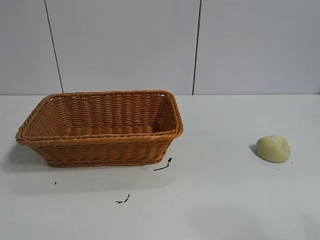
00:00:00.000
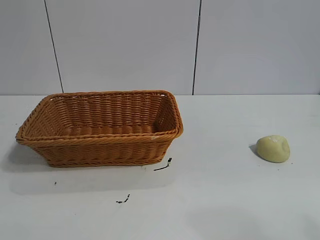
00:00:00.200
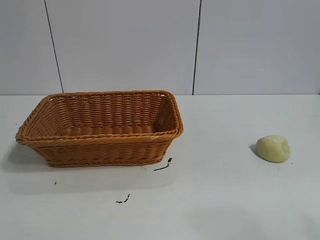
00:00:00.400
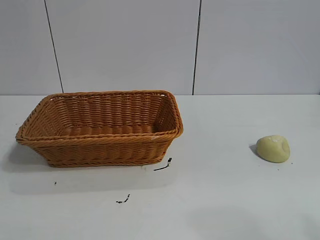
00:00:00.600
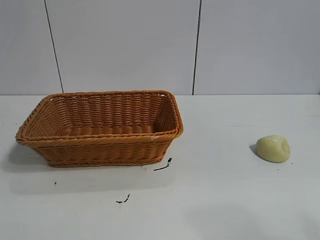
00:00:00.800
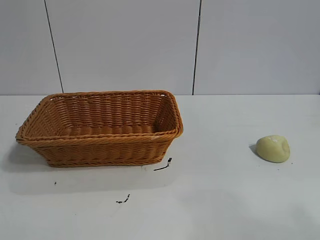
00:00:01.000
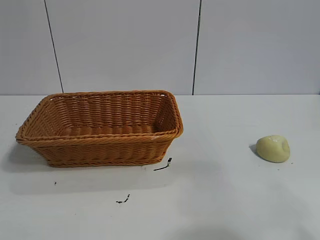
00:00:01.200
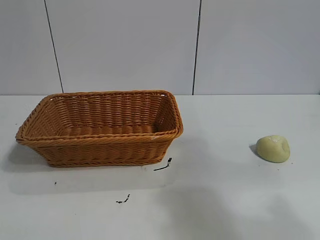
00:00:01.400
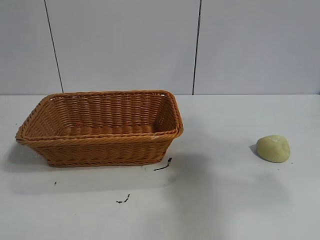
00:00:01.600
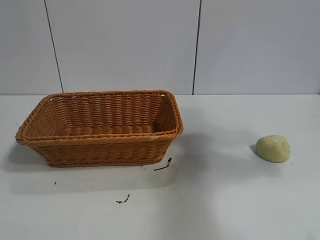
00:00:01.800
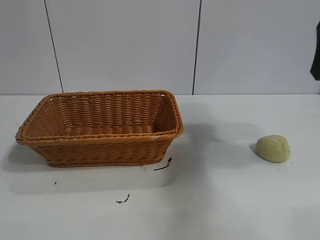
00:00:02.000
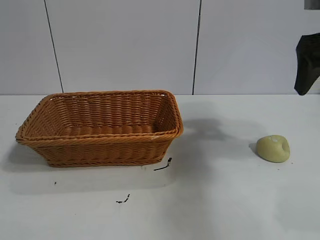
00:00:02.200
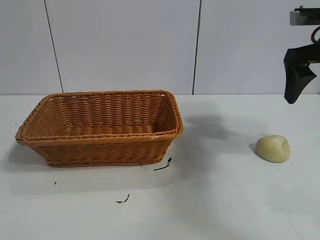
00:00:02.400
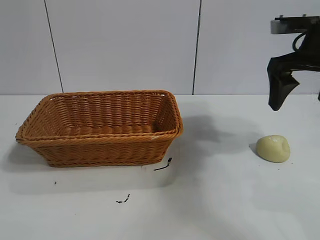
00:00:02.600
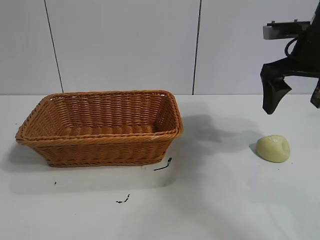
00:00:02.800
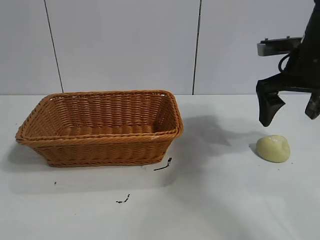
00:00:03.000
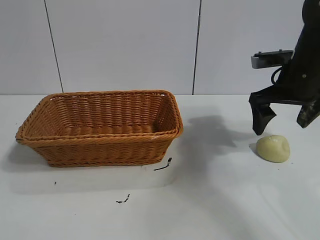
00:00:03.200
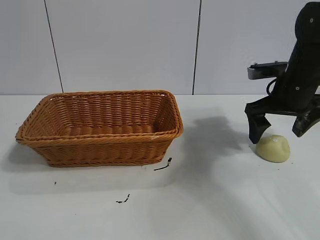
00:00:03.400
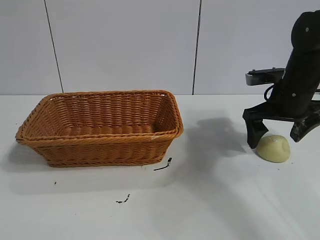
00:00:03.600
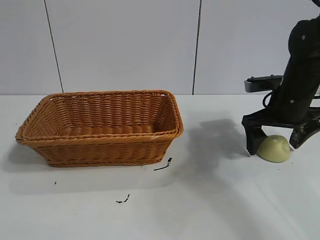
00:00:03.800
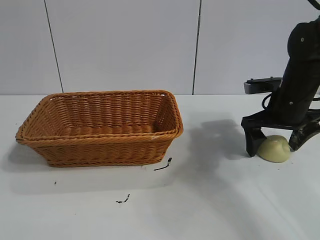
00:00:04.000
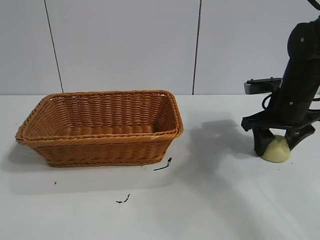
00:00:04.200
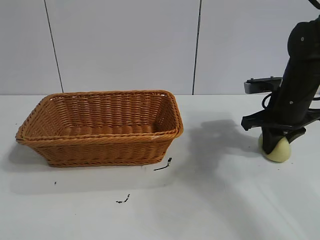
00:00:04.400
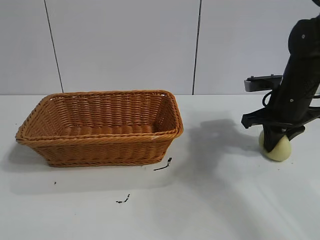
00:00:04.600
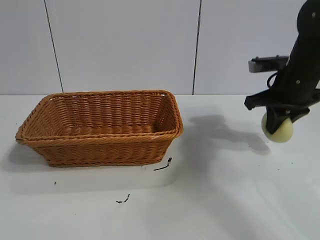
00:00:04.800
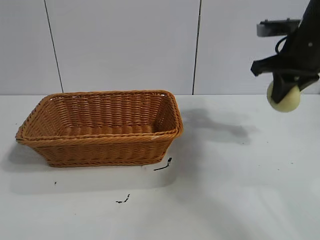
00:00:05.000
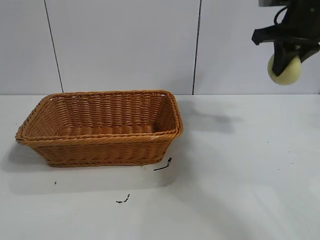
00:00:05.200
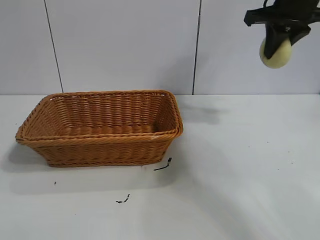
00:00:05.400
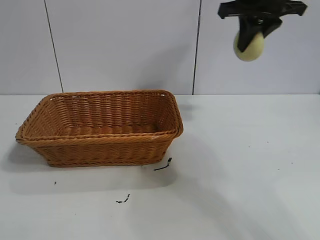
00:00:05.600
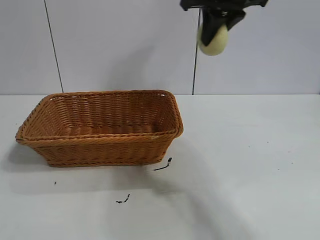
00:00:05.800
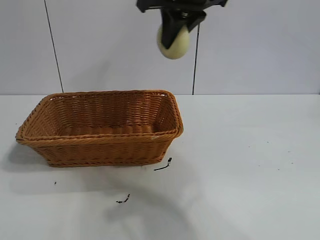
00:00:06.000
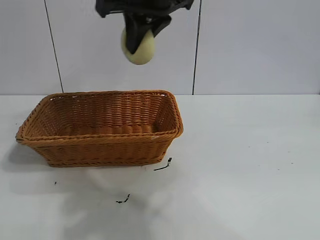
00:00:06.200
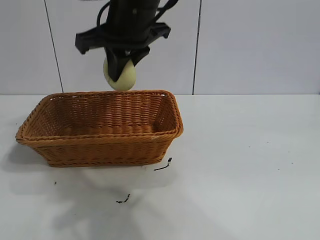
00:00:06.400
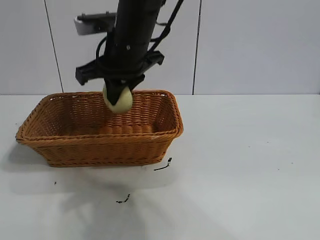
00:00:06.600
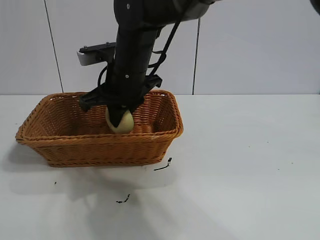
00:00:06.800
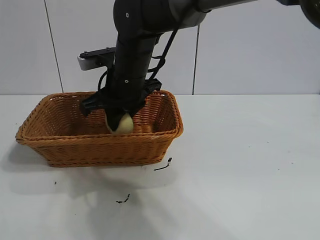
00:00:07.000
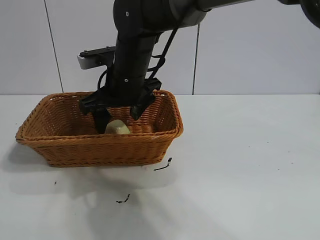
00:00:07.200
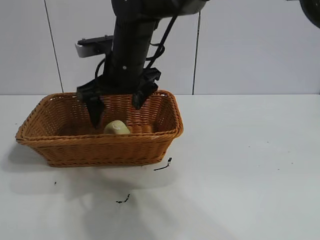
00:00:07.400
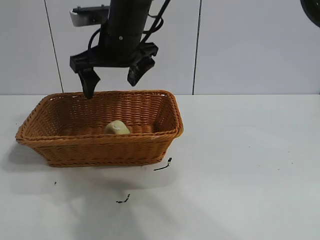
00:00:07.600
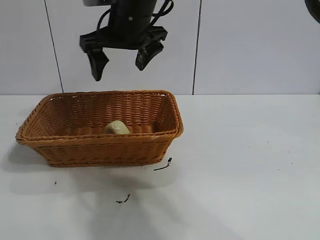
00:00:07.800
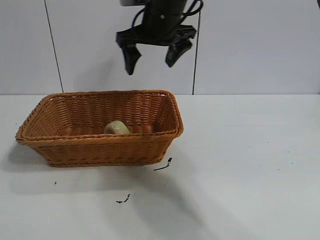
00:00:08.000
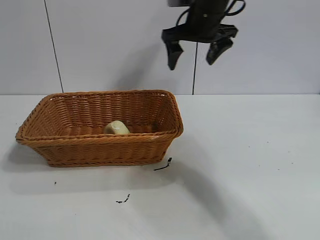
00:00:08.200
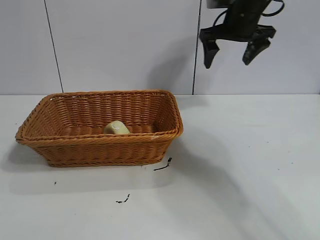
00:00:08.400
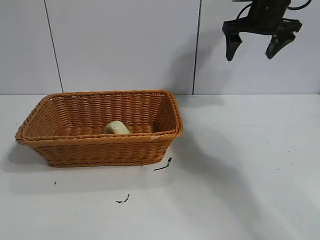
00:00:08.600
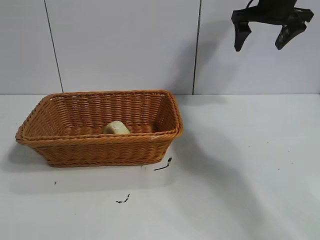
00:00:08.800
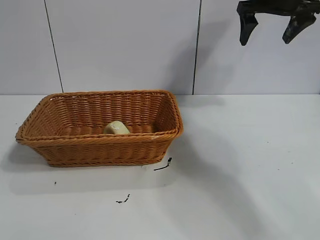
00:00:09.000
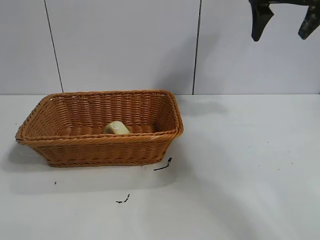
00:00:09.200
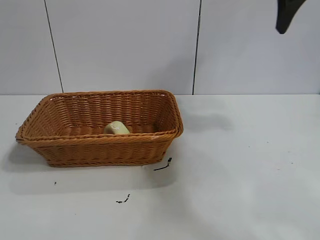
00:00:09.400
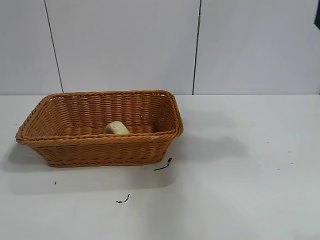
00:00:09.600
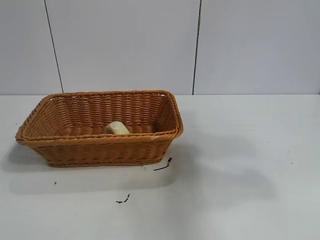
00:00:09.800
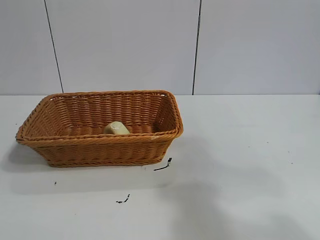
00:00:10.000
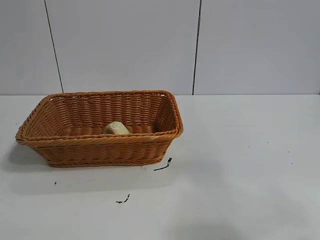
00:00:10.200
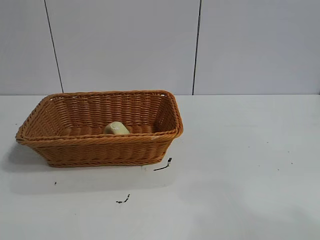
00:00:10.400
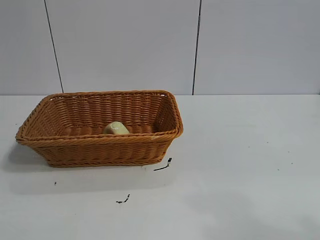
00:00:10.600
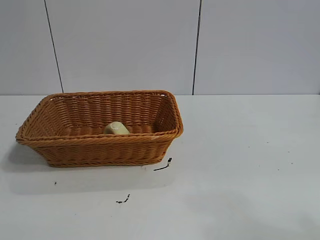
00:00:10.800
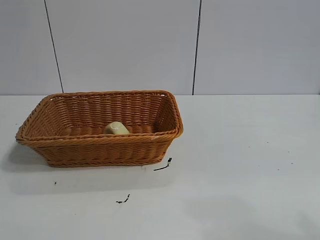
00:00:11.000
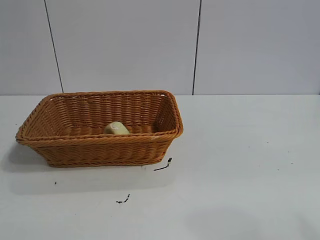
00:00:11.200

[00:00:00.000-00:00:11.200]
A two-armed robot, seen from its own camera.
Task of the whole recording: pick up the egg yolk pastry and put it into the basket.
Step, 00:00:01.000 to 00:00:04.400: Grasp egg yolk pastry with right gripper.
Step, 00:00:04.600 to 00:00:07.000: Place the egg yolk pastry in the basket with right gripper.

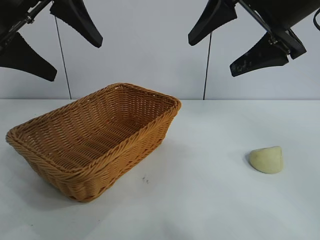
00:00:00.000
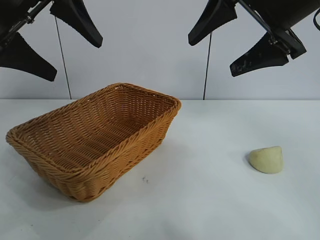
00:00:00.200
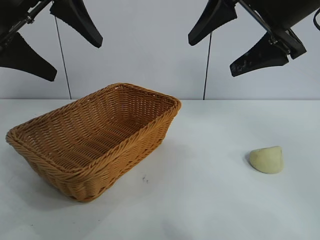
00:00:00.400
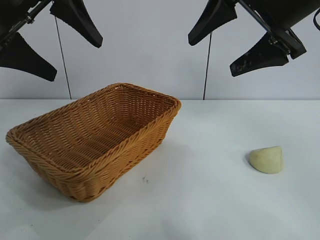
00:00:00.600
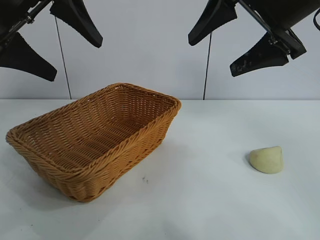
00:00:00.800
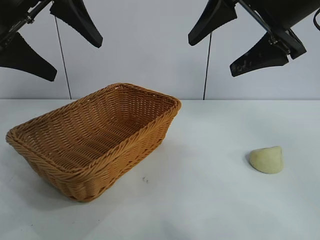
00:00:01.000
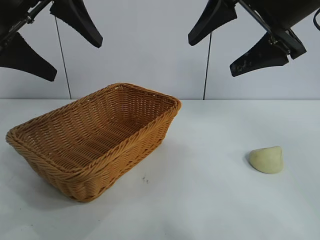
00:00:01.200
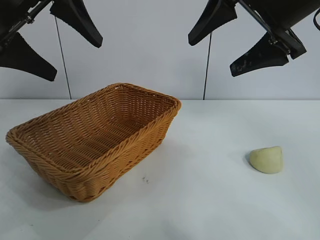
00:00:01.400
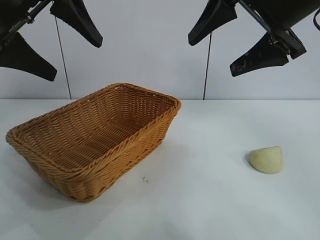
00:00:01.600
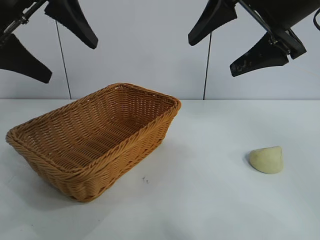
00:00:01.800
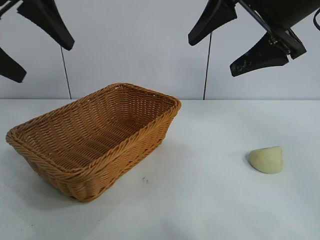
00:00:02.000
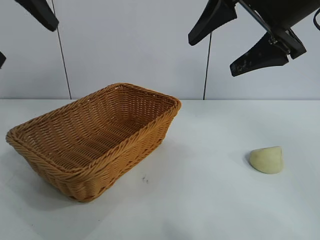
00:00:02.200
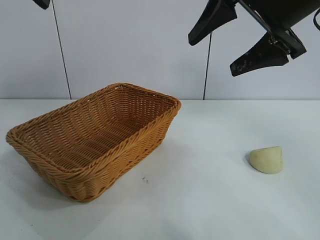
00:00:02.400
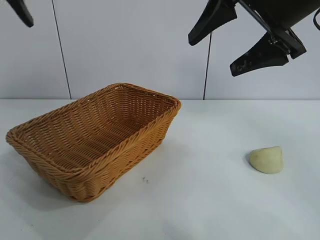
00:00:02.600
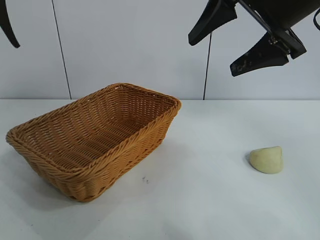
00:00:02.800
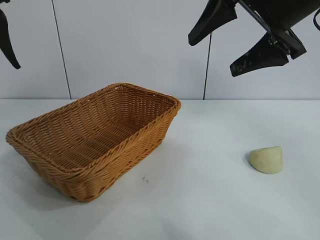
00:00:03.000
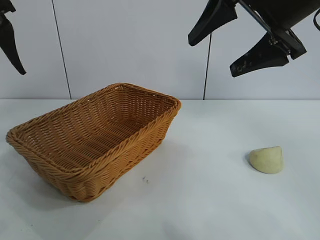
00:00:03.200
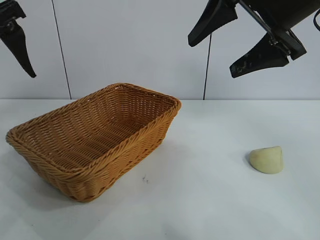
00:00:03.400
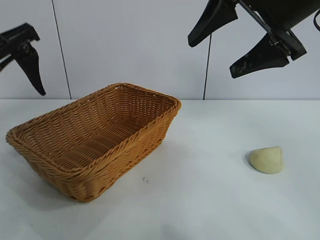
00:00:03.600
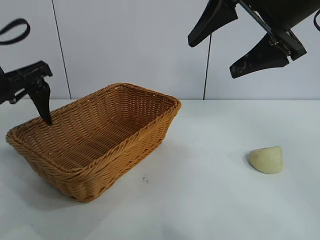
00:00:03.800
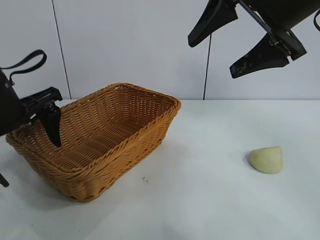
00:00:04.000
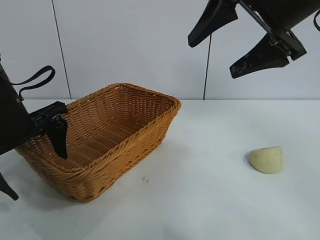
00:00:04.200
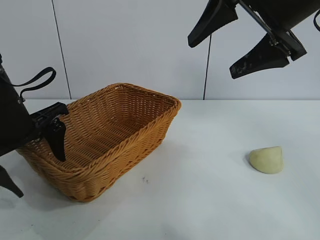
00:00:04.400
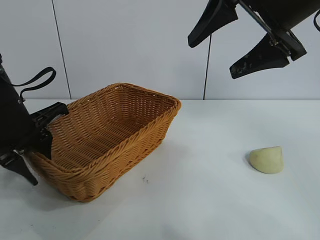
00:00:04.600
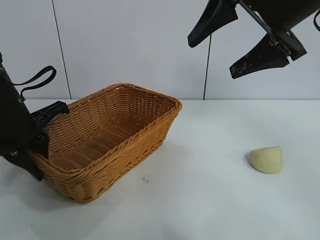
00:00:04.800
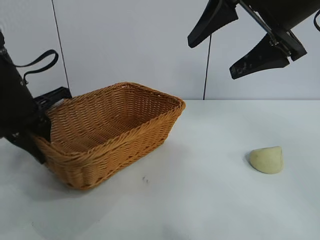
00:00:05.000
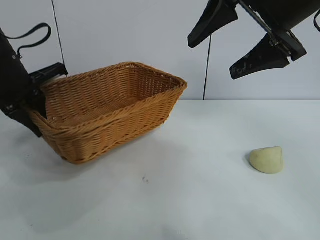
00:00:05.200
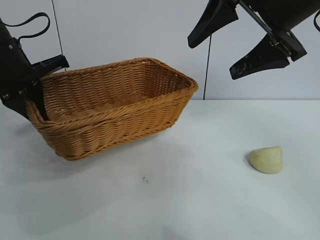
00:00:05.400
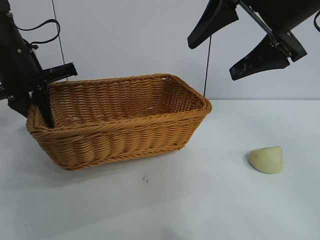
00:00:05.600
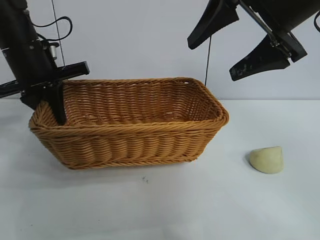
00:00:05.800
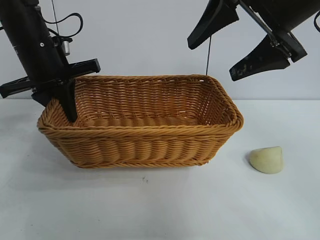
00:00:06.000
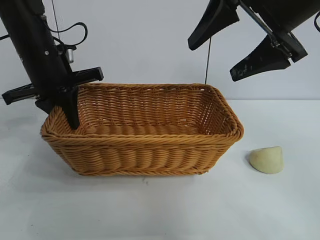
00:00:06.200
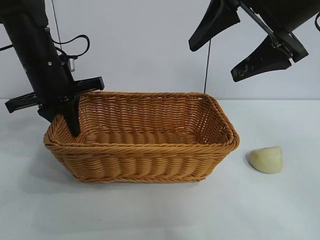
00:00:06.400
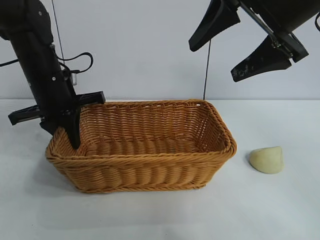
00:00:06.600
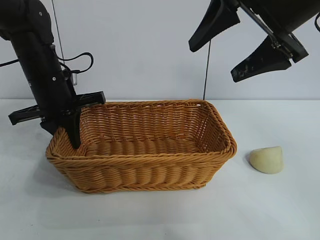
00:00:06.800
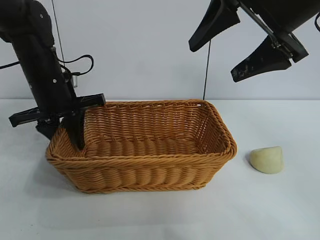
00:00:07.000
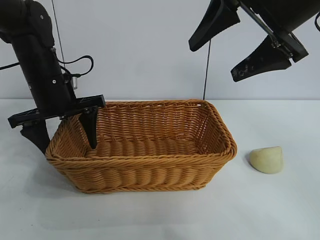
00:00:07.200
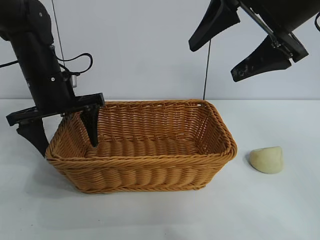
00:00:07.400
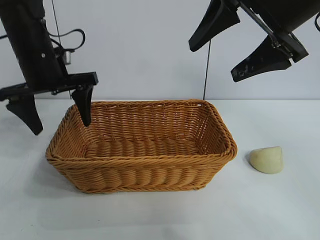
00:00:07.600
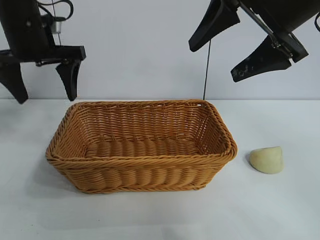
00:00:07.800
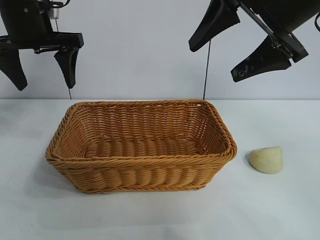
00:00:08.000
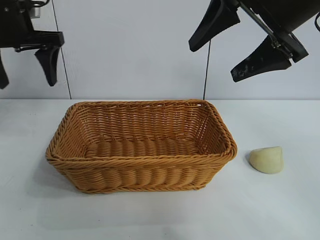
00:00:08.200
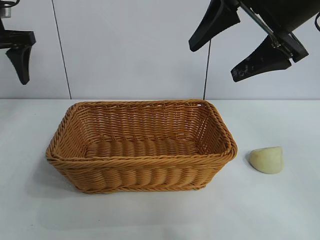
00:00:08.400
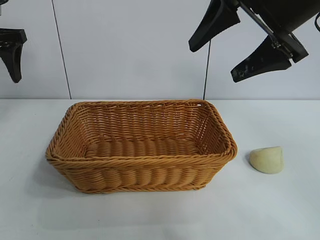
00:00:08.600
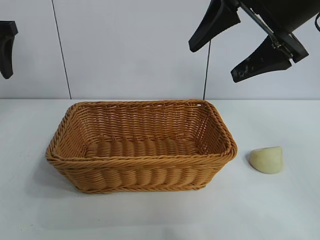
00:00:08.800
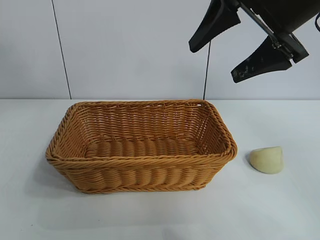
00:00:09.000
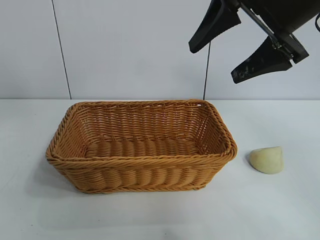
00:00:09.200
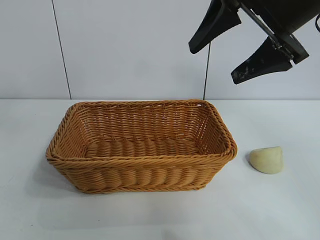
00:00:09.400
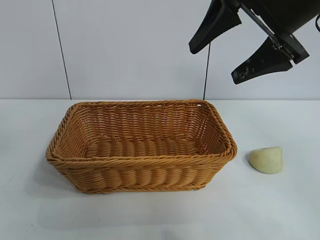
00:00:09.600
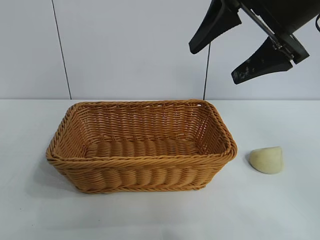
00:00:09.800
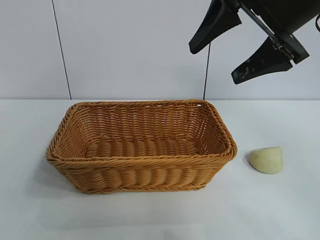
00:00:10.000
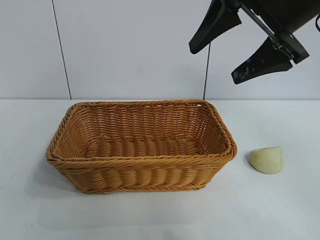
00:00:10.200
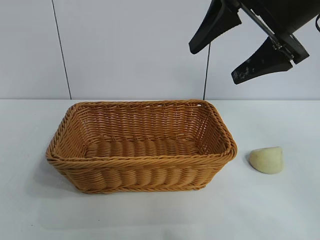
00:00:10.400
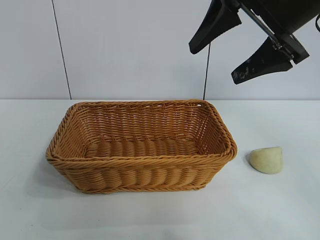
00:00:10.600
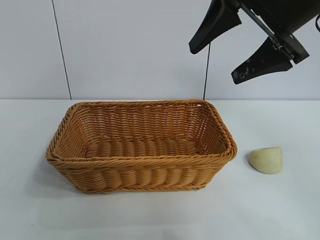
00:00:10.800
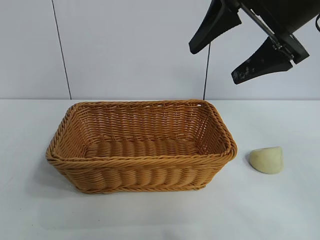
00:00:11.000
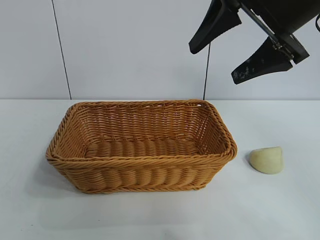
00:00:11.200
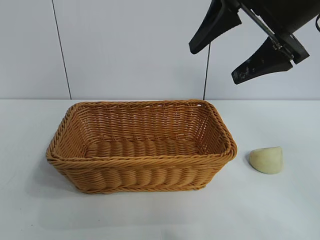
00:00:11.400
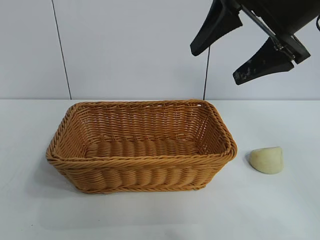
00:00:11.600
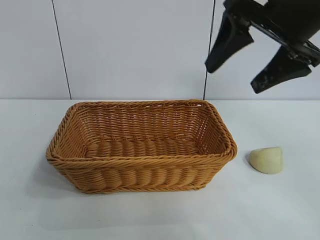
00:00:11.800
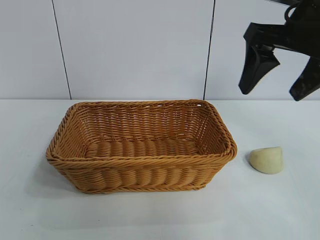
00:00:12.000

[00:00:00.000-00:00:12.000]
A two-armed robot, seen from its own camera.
Task of the whole recording: pick up the egg yolk pastry and put it into the basket.
Step, 00:00:01.800 to 00:00:04.600: Grasp the basket with left gripper.
Step, 00:00:04.800 to 00:00:07.000: Place the basket in the center of view with left gripper.
